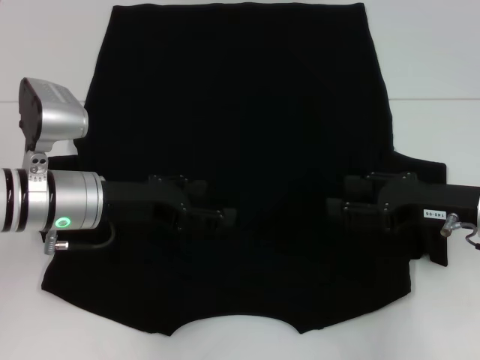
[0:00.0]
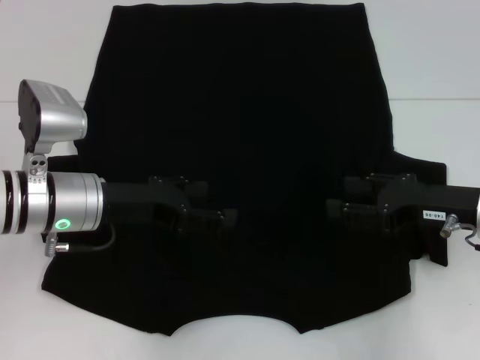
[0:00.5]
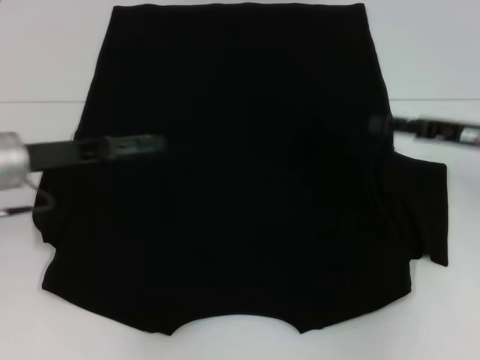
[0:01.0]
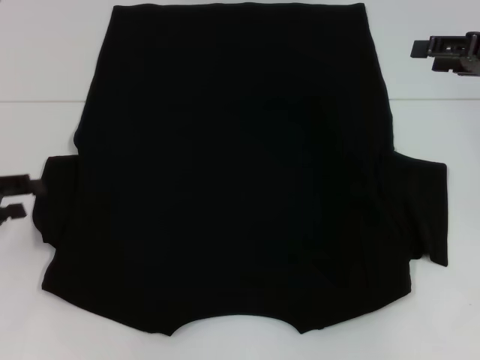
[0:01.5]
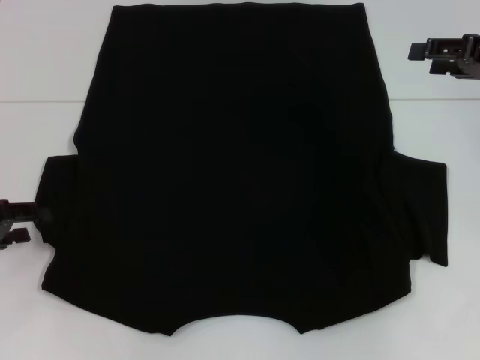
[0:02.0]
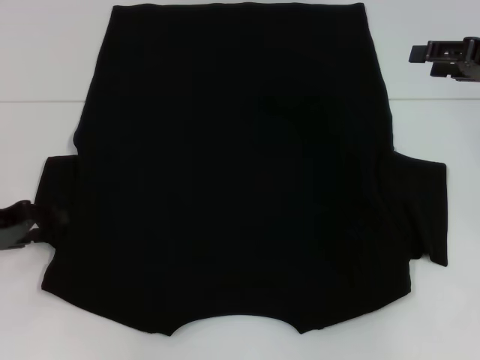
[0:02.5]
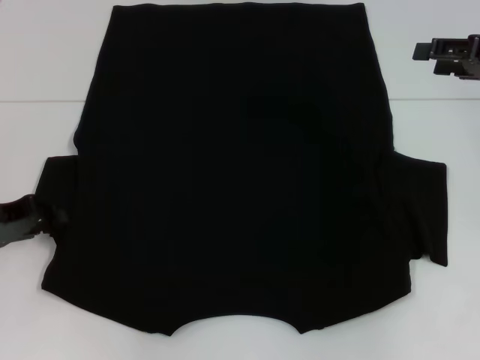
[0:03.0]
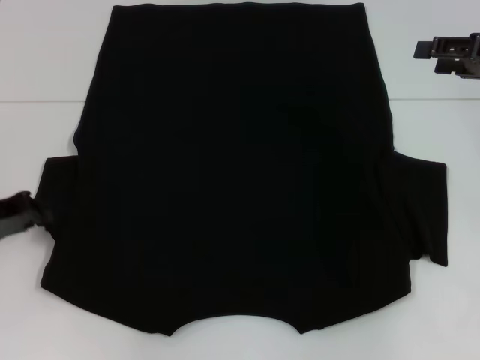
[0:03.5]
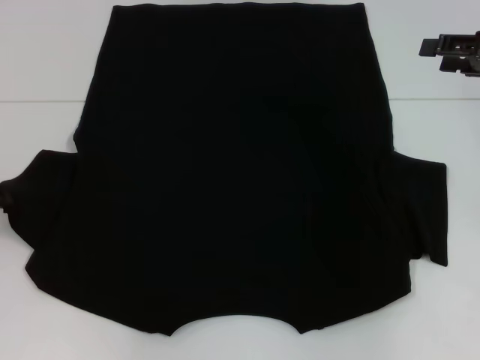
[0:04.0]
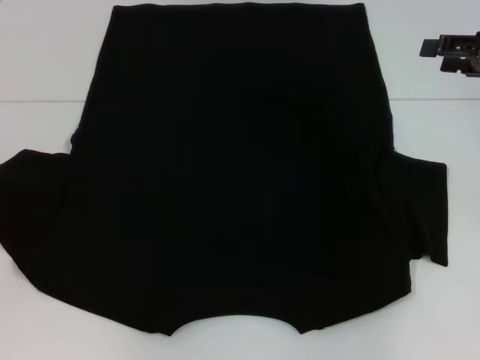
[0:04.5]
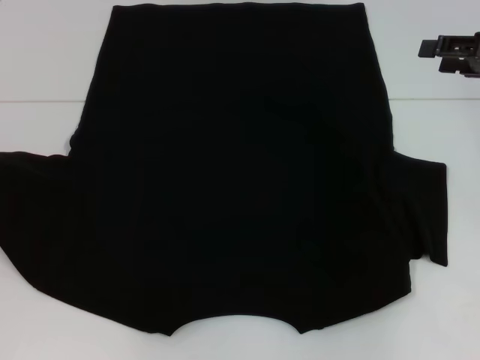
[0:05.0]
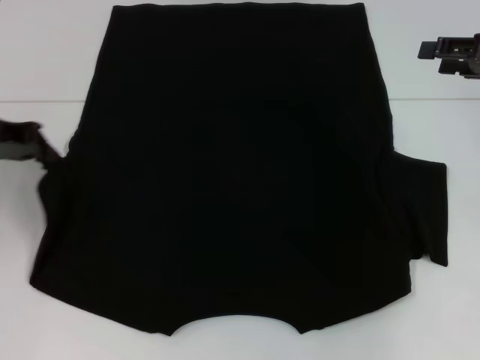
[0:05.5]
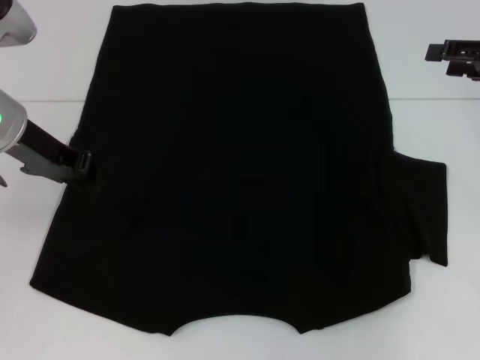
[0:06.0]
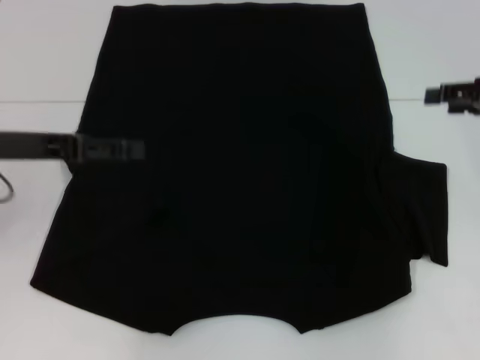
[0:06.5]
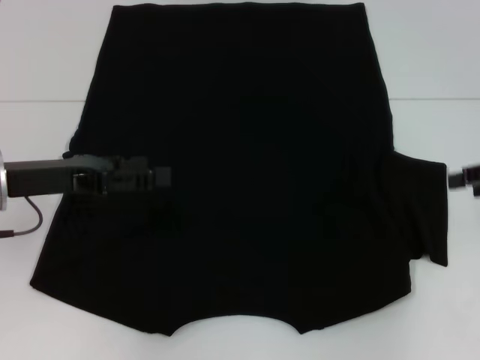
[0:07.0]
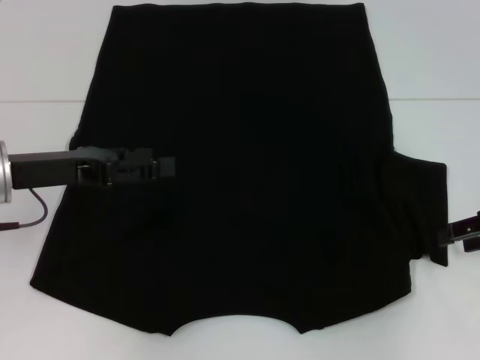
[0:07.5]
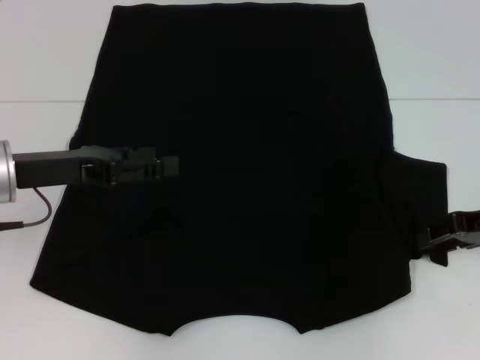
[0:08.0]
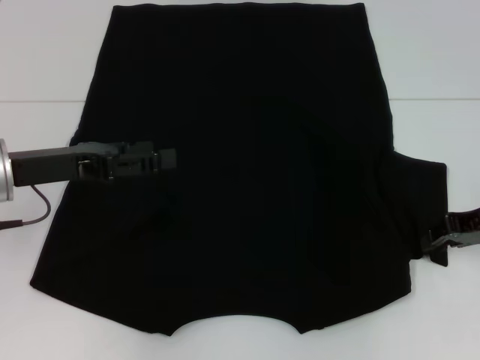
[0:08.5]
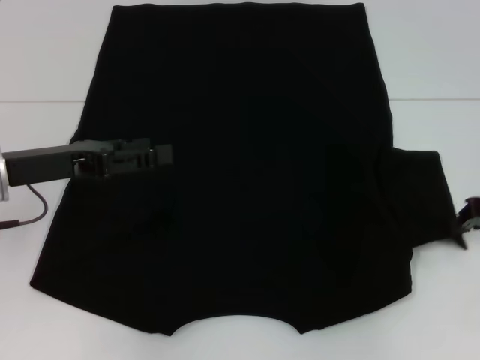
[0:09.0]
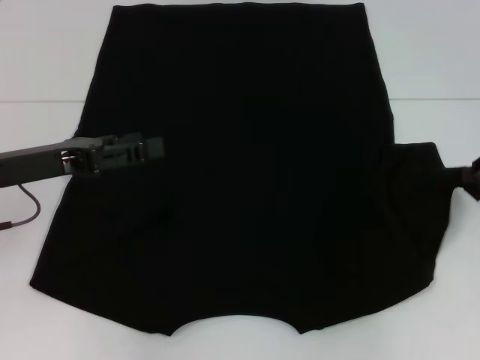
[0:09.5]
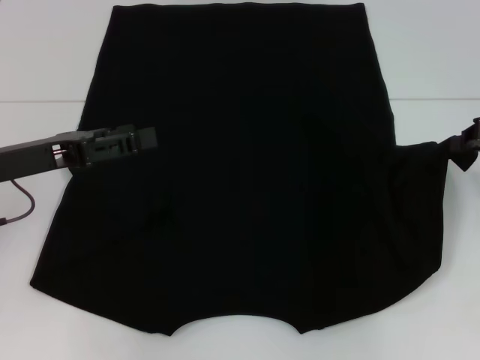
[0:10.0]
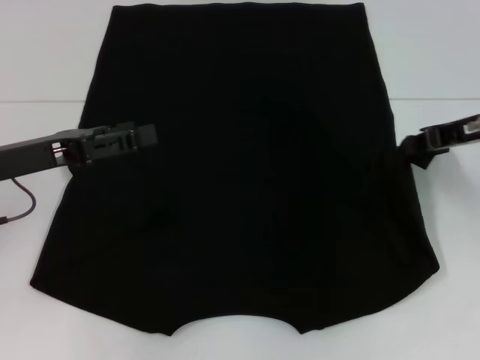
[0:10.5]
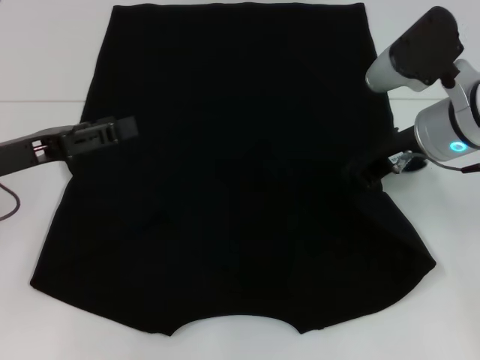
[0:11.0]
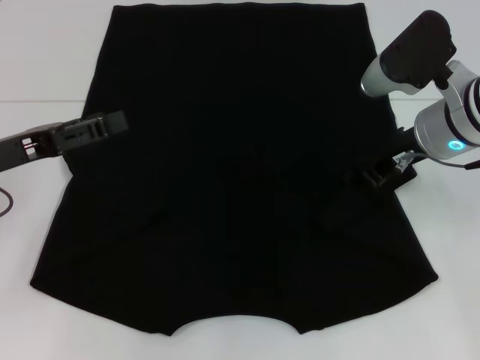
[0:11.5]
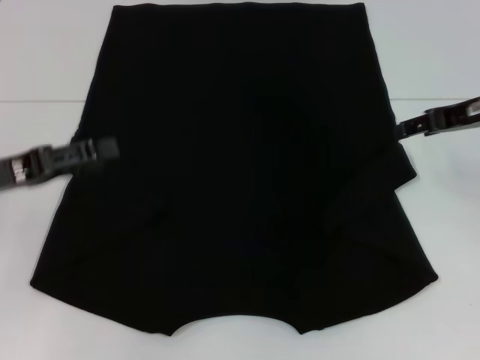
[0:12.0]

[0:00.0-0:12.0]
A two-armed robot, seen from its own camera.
Step, 0:00.0 to 0:06.0: Fold the bottom left sleeve with your left hand.
Step, 0:06.5 to 0:11.5: Fold the bottom right sleeve with your right hand.
0:00.0 to 0:02.0: The right gripper shifts some 15 cm upward, forward and to the right. Meanwhile the left gripper heads to the left, covering approximately 15 cm.
0:02.0 to 0:04.0: The left gripper closes its fingers.
0:04.0 to 0:06.0: The left gripper moves to the right, upward and forward, about 15 cm.
0:06.0 to 0:08.0: The right gripper is displaced downward by roughly 10 cm. The left gripper goes approximately 5 cm backward, and opens up.
0:08.0 to 0:10.0: The right gripper goes approximately 5 cm upward, and closes its fingers.
0:10.0 to 0:12.0: The right gripper moves to the left, roughly 5 cm, and opens.

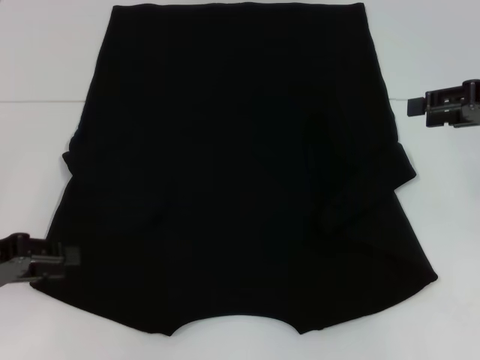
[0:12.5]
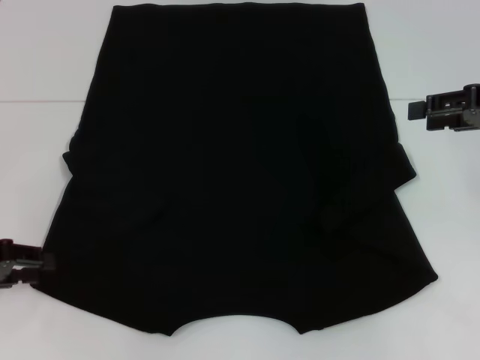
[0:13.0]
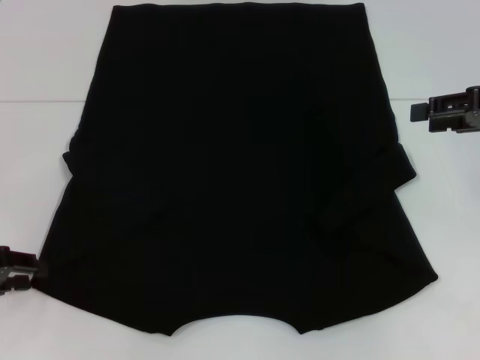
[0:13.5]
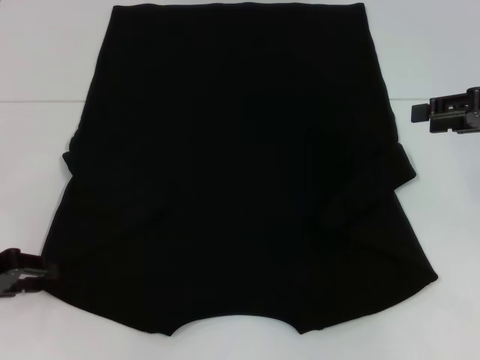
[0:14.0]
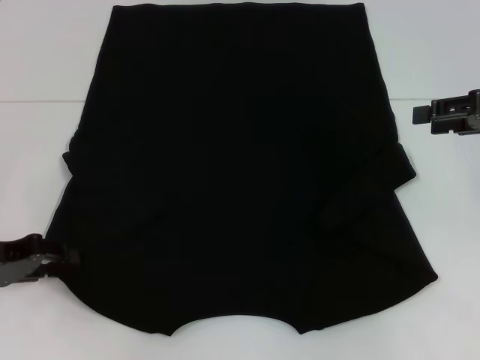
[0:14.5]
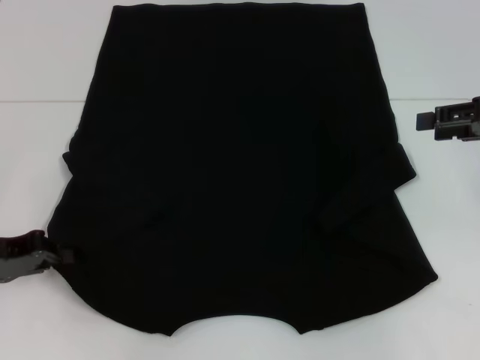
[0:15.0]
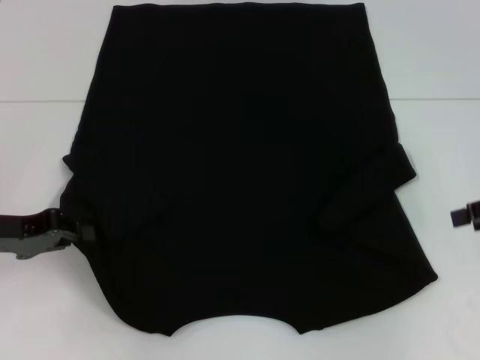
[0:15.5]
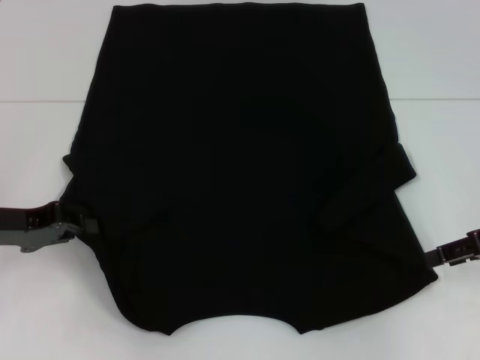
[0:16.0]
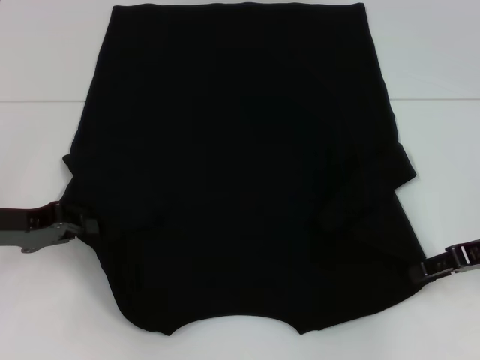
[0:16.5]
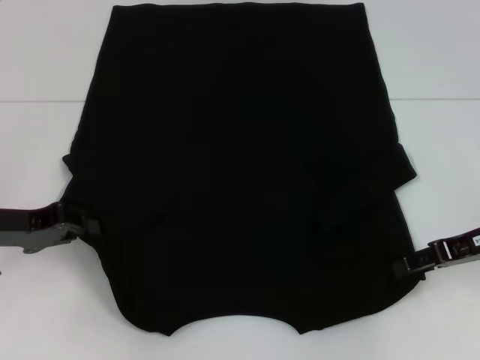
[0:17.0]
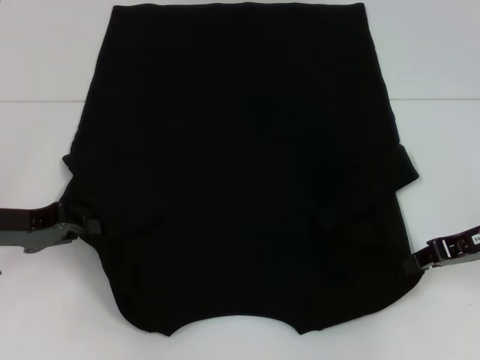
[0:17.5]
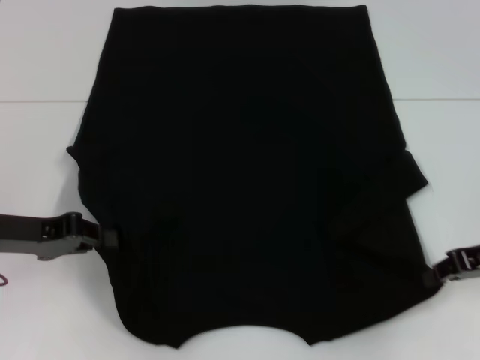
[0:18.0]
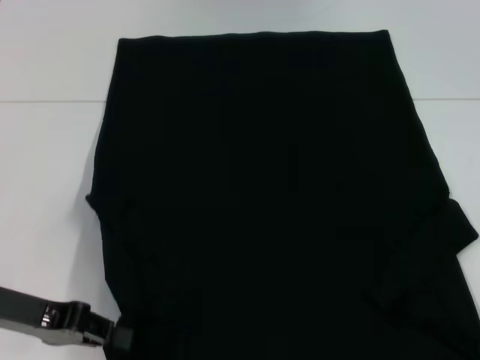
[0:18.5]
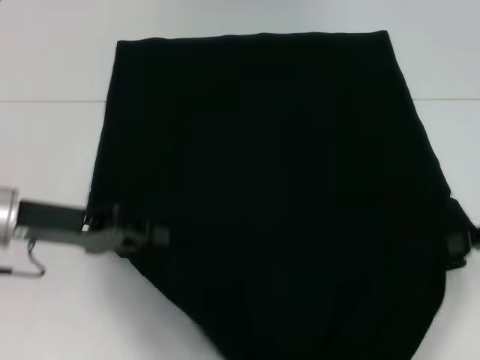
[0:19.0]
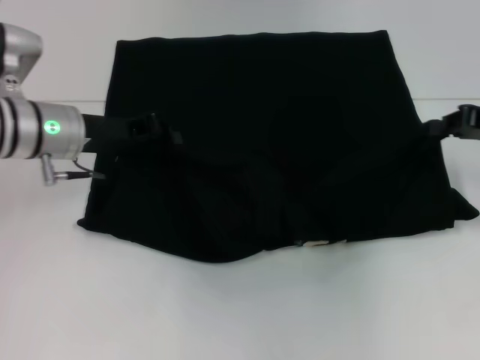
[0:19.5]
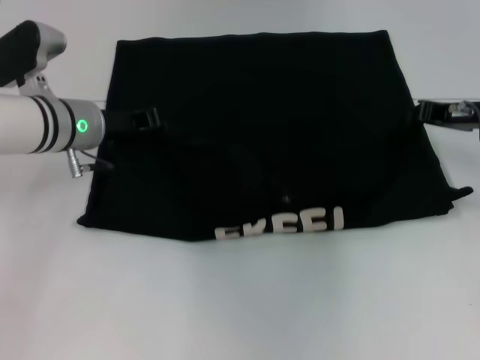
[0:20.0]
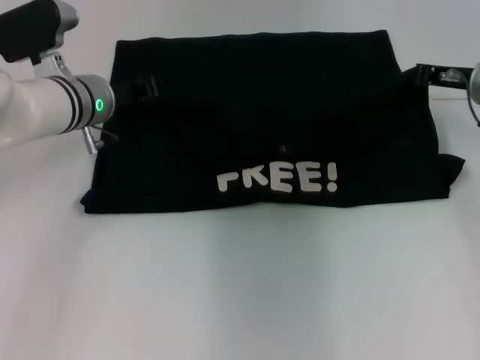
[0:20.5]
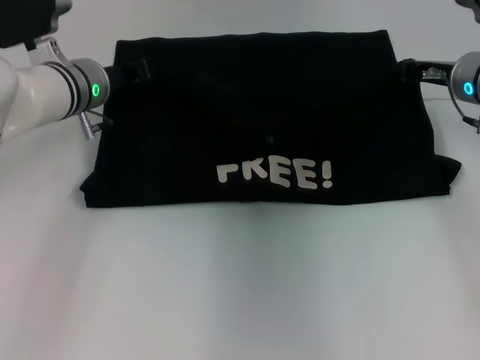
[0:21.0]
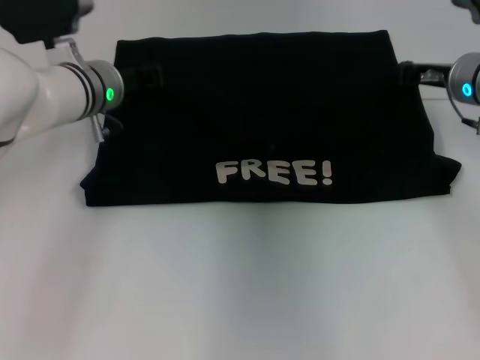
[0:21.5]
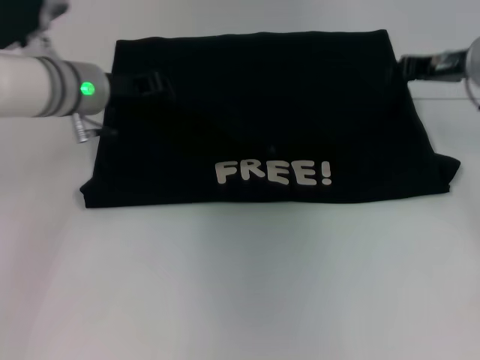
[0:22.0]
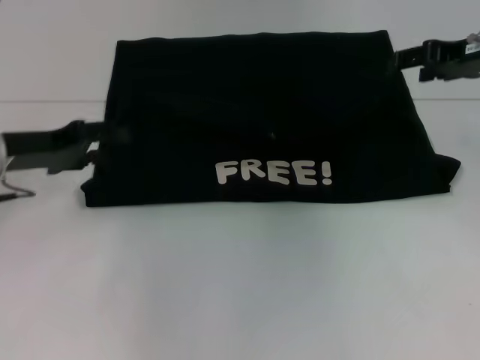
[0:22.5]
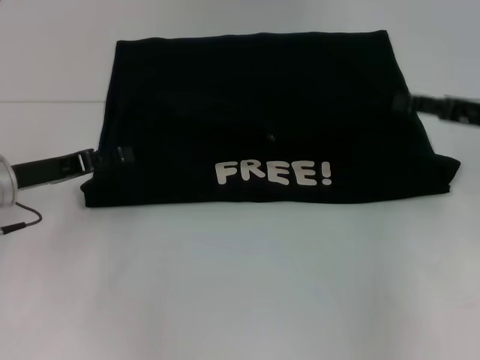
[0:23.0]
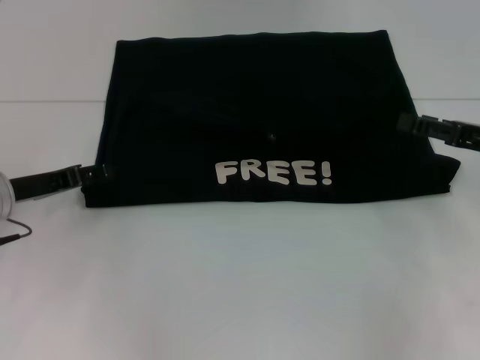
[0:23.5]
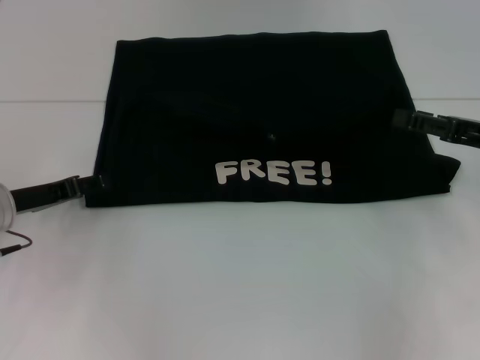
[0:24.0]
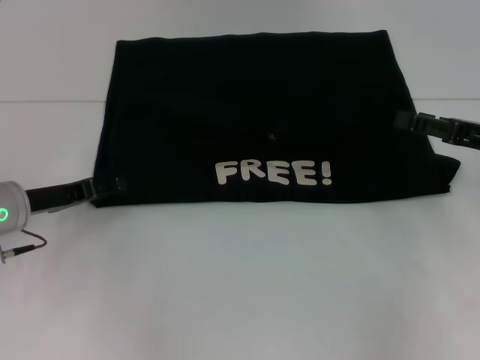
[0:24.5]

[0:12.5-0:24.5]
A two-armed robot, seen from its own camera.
Step, 0:12.5 to 0:15.0: Grab the bottom left corner with your left hand.
Step, 0:15.5 to 0:17.5: Grab the bottom right corner with your right hand.
Step, 0:18.0 to 0:21.5: Fold the clothes with your left hand.
Step, 0:18.0 to 0:21.5: Fold the clothes with your right hand.
0:12.5 to 0:14.5: The grippers move only a little.
0:14.5 to 0:16.5: The left gripper closes its fingers. Meanwhile the right gripper heads downward, covering roughly 10 cm.
0:16.5 to 0:18.5: The left gripper changes place by roughly 5 cm, while the right gripper moves backward, about 10 cm, and closes its fingers.
0:18.5 to 0:20.5: The left gripper travels forward and to the right by approximately 20 cm, while the right gripper travels forward and to the left by some 20 cm.
0:20.5 to 0:22.5: The right gripper goes some 10 cm upward, and opens; the left gripper goes roughly 15 cm to the left and backward, and opens up.
0:22.5 to 0:24.5: The right gripper is displaced backward and downward by some 15 cm. The left gripper goes about 5 cm downward.

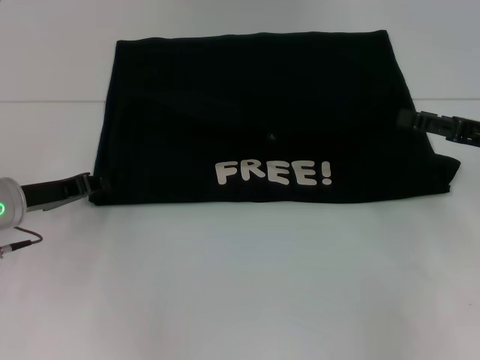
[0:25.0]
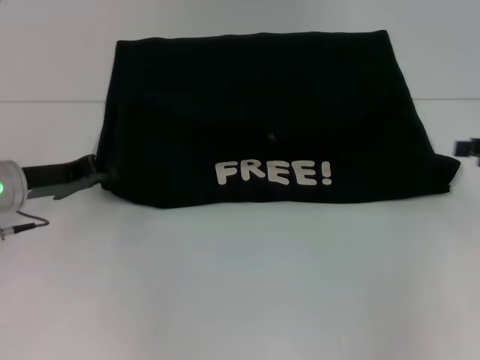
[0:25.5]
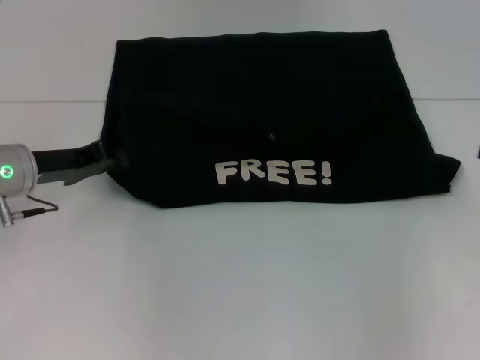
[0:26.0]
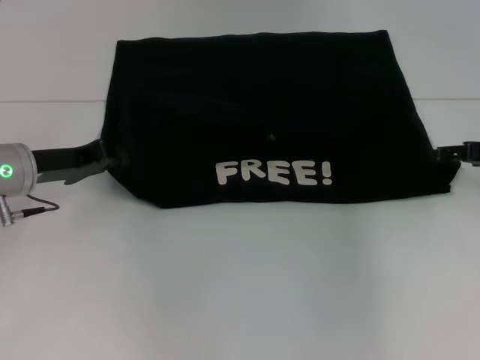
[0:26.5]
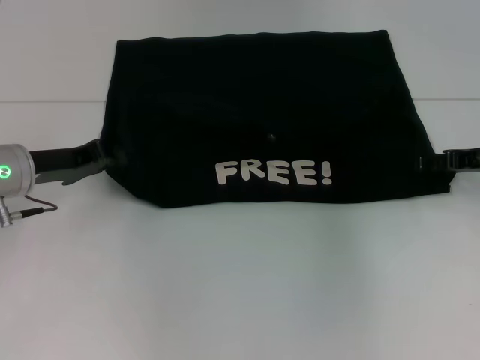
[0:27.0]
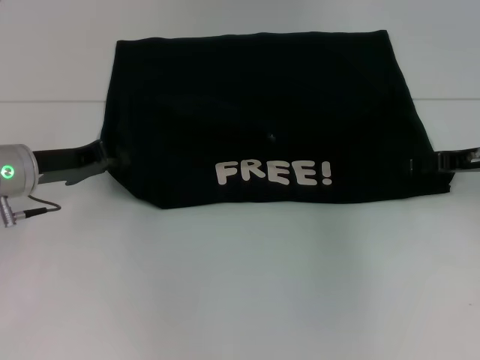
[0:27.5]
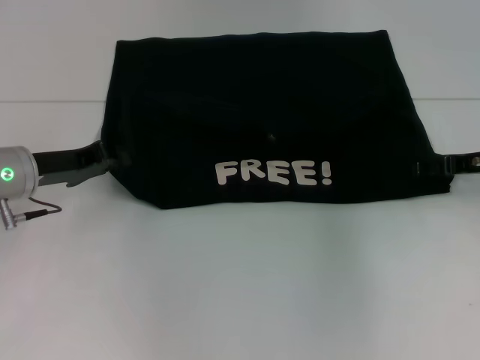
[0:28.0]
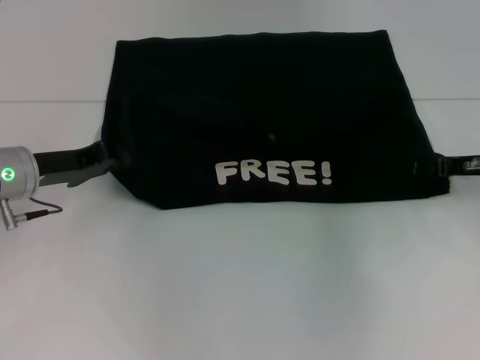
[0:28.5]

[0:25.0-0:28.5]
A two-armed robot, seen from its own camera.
0:25.0 to 0:27.0: The left gripper closes up, while the right gripper travels forward by roughly 5 cm, and reaches approximately 5 cm to the right, then returns.
0:27.0 to 0:28.5: The grippers stay close to where they were, moving slightly.
